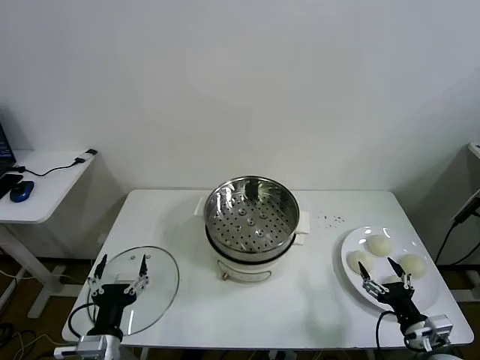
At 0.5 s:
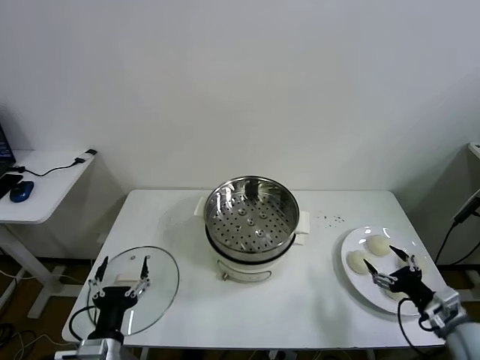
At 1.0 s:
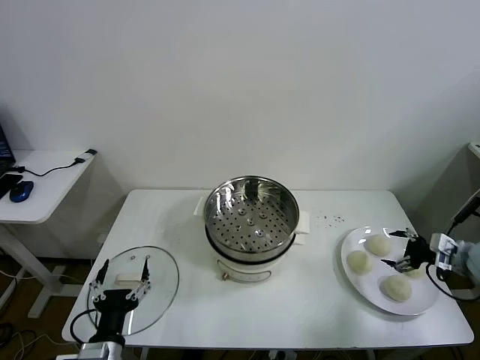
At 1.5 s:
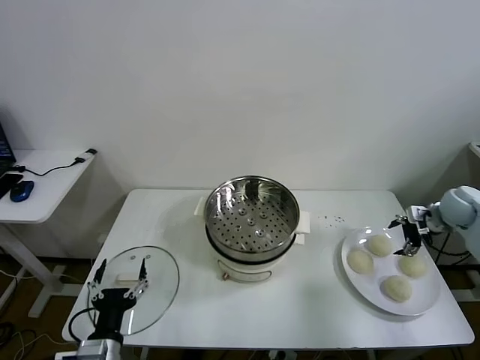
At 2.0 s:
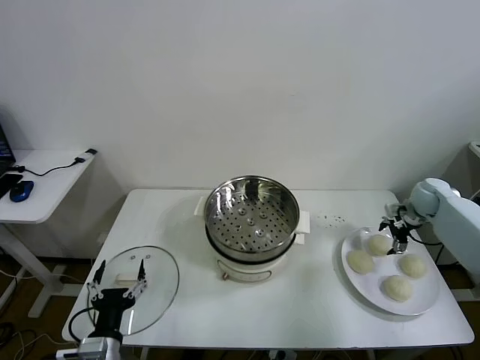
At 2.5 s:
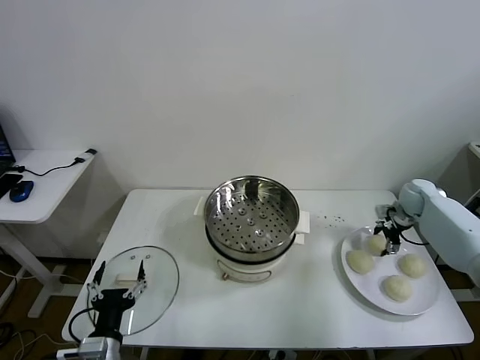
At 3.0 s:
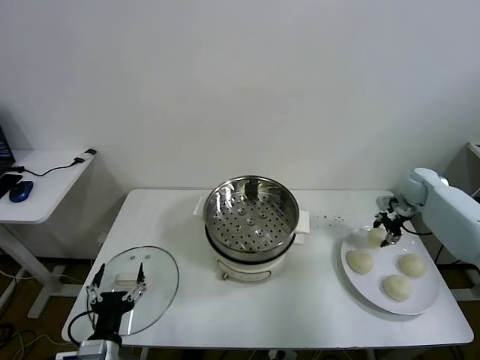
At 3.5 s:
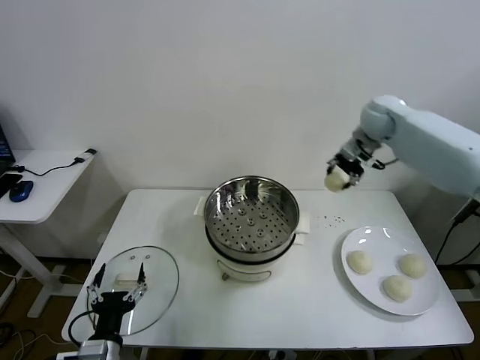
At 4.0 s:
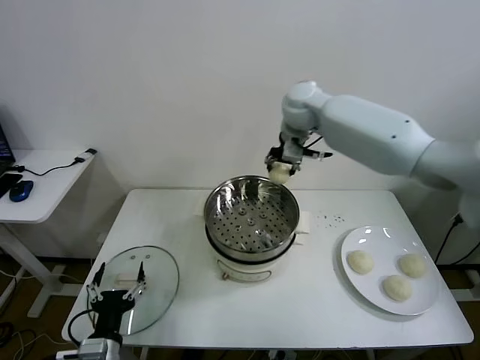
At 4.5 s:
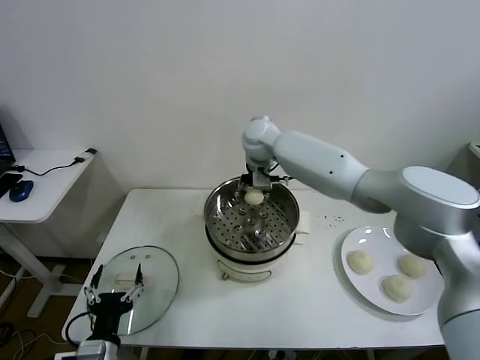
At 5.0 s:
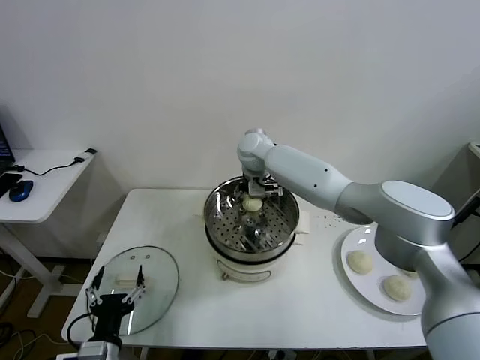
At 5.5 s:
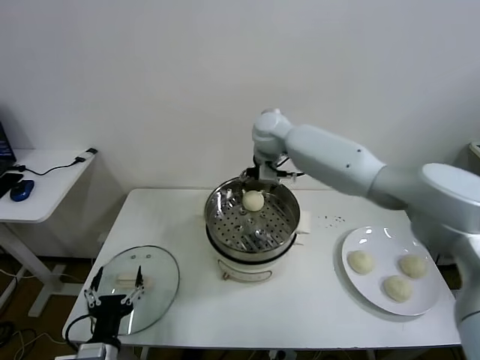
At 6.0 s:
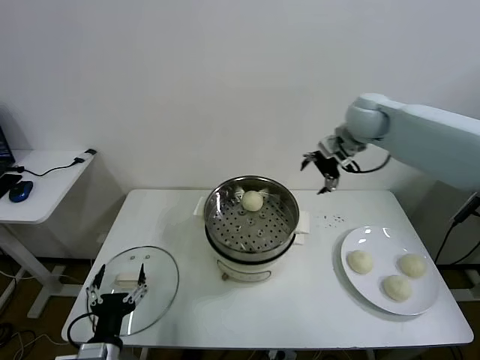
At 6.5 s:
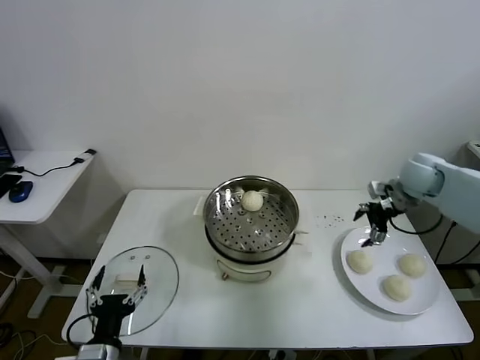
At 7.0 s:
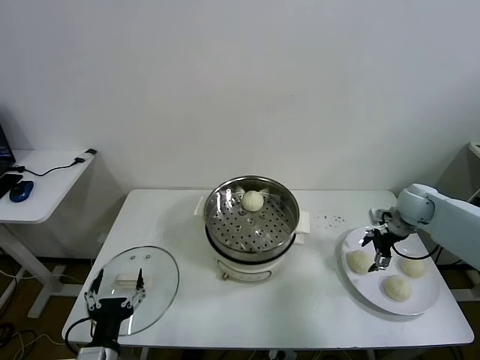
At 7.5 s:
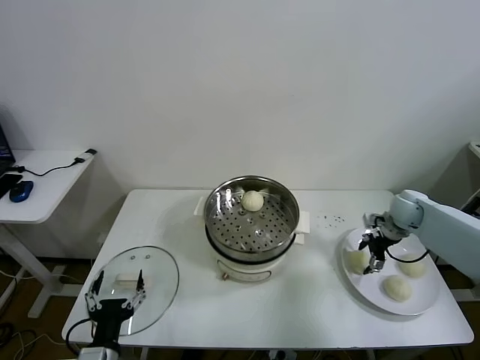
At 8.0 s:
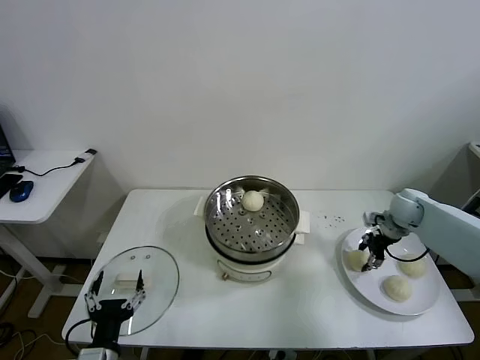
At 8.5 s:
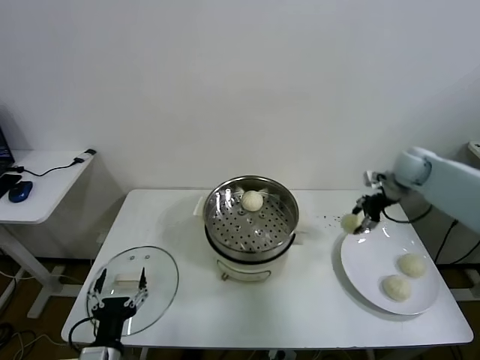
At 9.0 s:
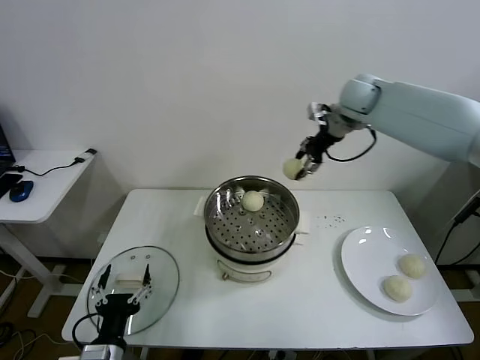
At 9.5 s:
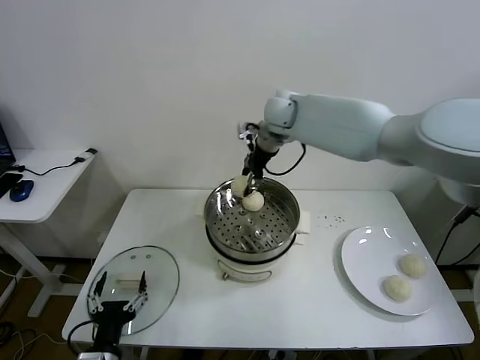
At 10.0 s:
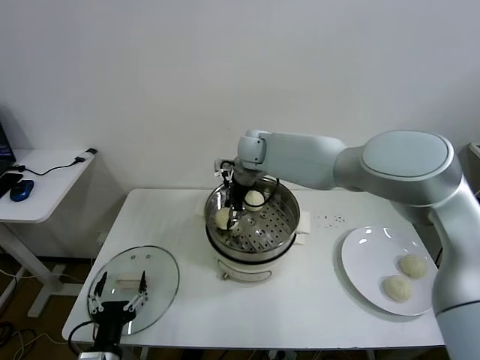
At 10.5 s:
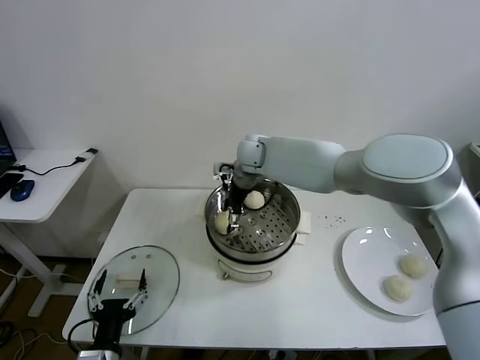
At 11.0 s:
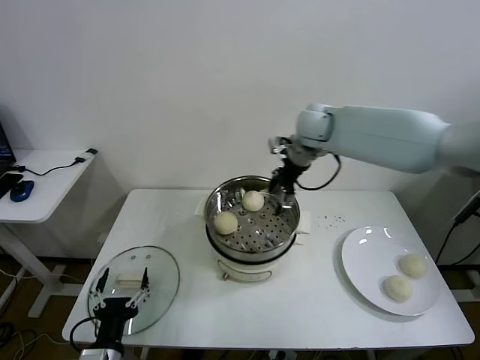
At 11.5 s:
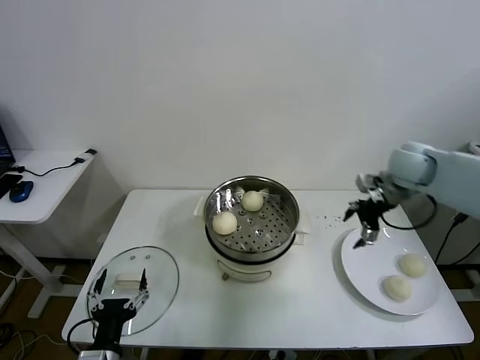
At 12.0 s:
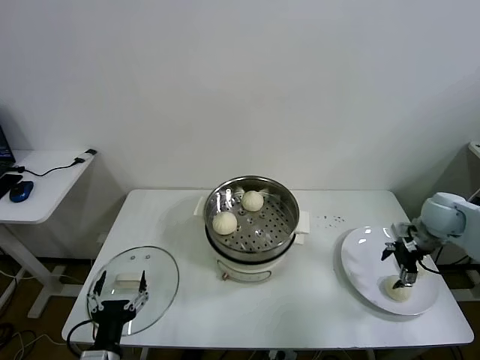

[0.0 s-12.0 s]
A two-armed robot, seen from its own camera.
Task of the whole recording: take steamed baozi put them in steamer.
Step, 0.0 to 2.5 s: Grasp the baozi in the plate with right gripper.
Step, 3.0 to 5.0 s: Place the baozi on the steamer with right gripper.
Step, 5.5 to 7.5 s: Grasp the baozi in the plate with right gripper.
Step, 8.0 to 10.5 s: Place the baozi on the steamer with right gripper.
2.0 to 4.0 s: The right gripper shifts about 40 cm to the left and upward, and closes up.
4.0 to 6.0 s: The right gripper shifts roughly 20 cm to the right, and opens up.
6.0 to 8.0 s: The right gripper heads downward and to the right, covering roughly 25 cm, and closes.
8.0 to 10.0 s: The right gripper heads to the left, covering about 40 cm.
10.0 to 12.0 s: The right gripper moves to the right, approximately 40 cm, and opens its fingers.

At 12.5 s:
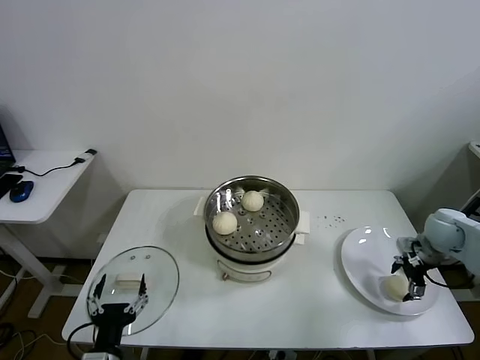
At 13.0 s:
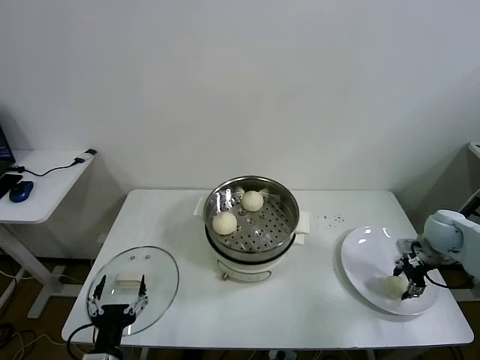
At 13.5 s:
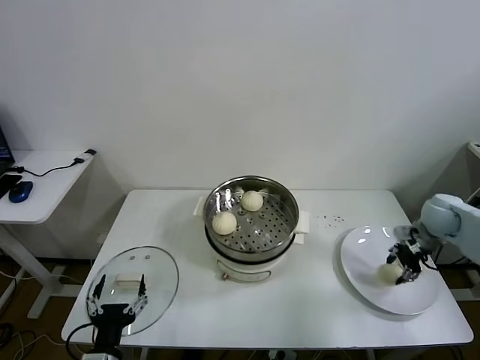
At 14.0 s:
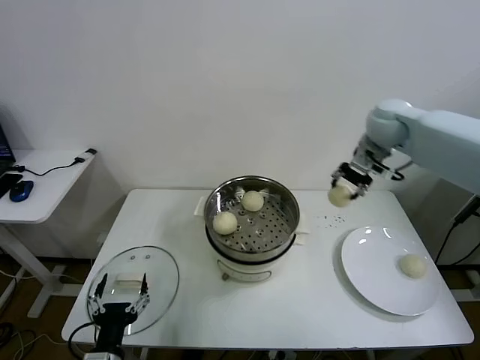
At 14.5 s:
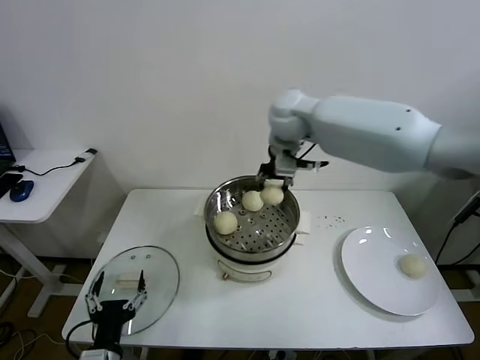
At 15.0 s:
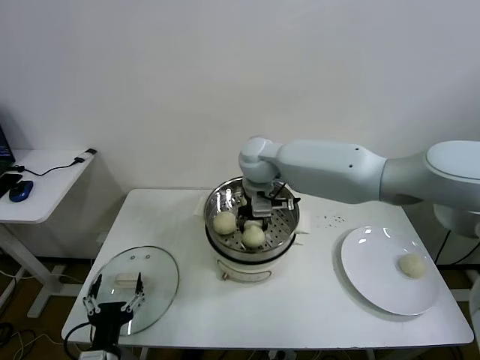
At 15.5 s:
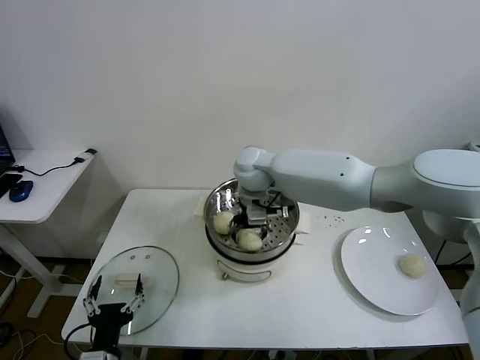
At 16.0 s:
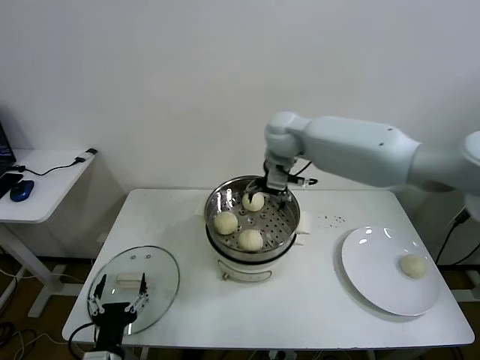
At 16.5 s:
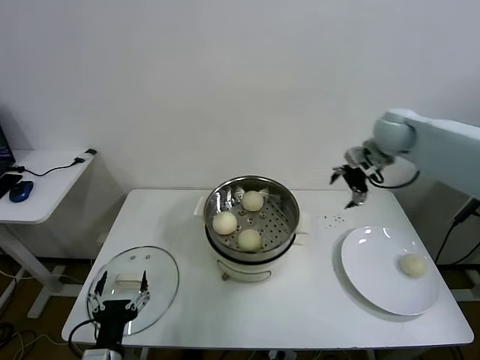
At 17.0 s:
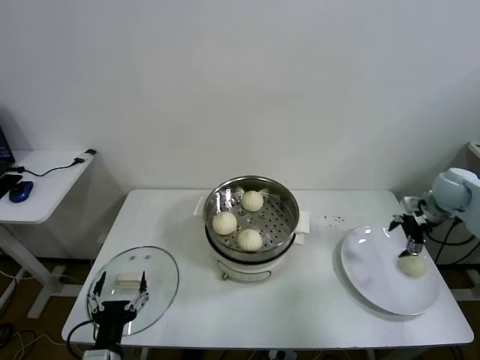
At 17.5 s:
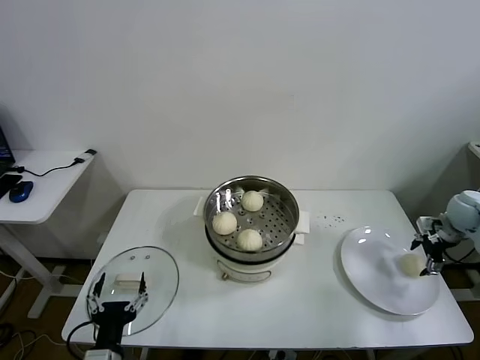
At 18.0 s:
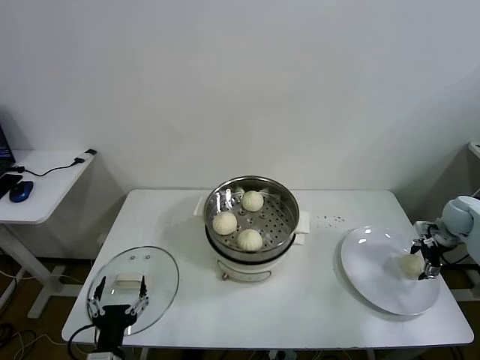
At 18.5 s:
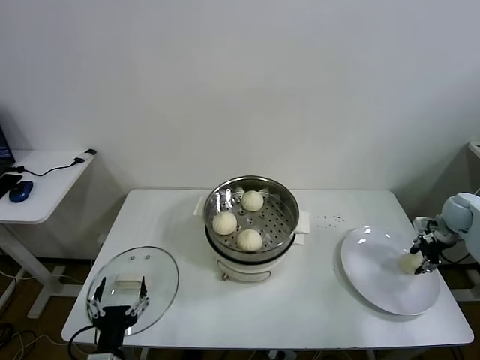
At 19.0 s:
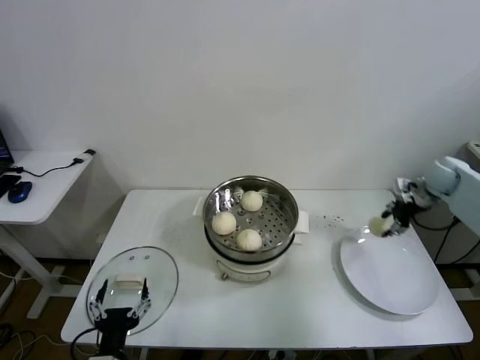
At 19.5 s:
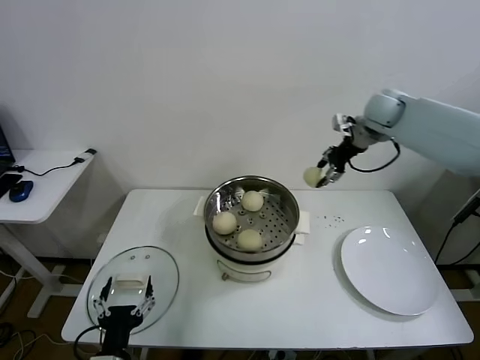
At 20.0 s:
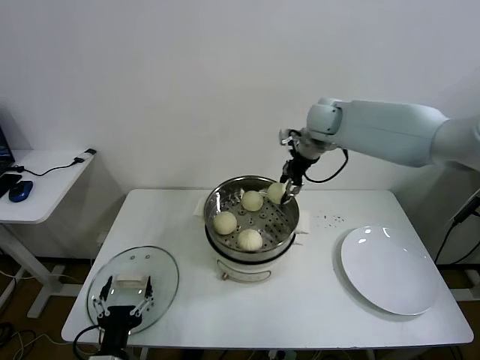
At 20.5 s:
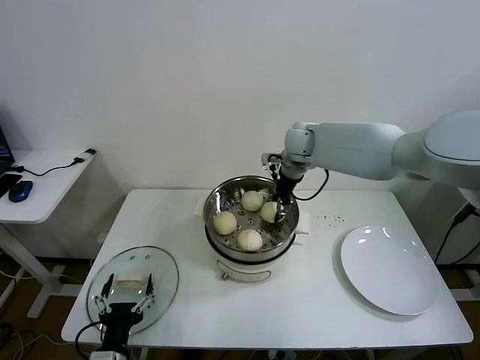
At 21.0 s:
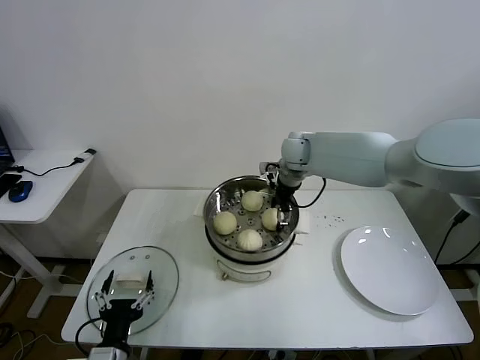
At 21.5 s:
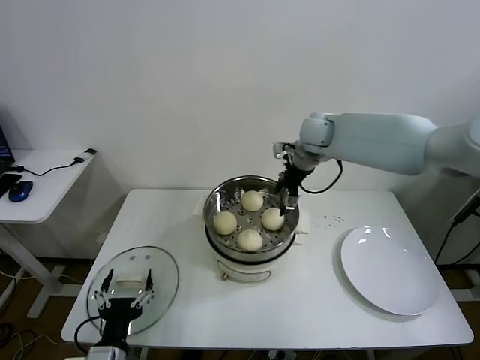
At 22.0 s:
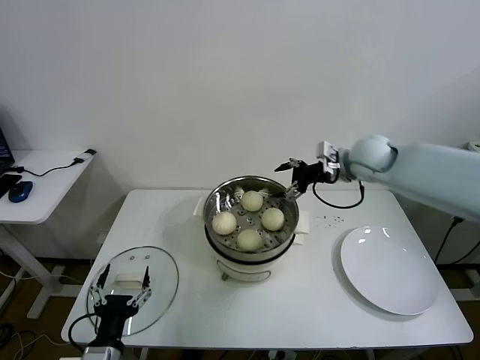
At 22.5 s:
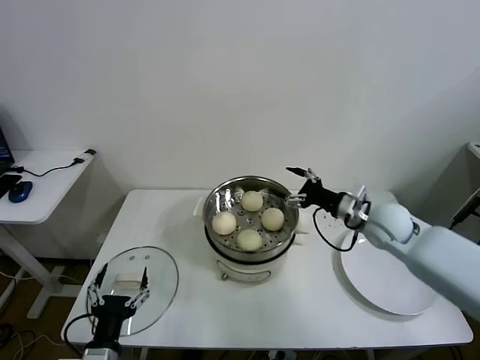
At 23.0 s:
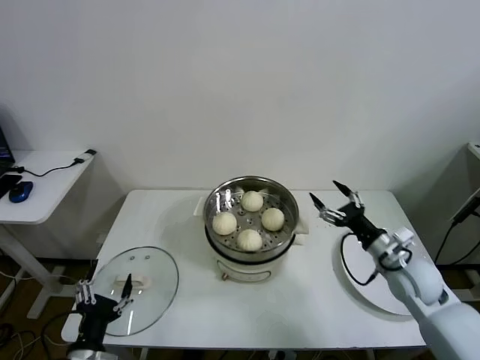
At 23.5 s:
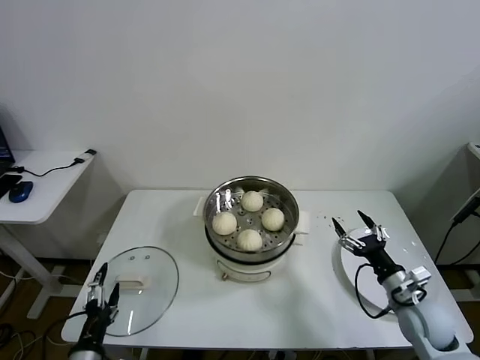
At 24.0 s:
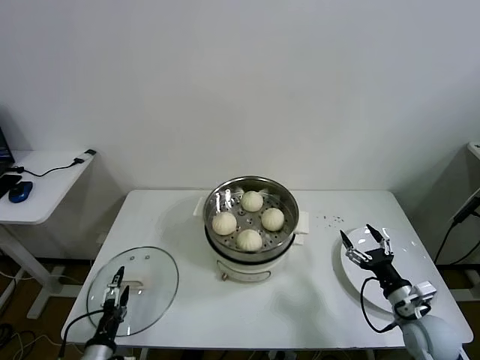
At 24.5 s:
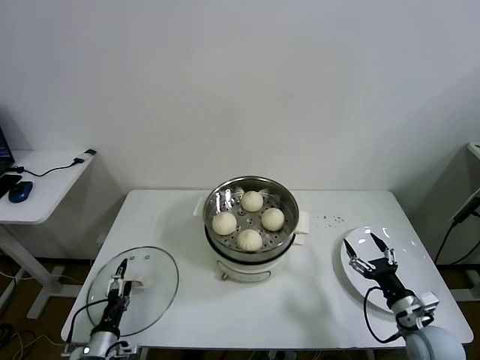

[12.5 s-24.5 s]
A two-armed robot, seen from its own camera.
Task of the whole recording: take steamed baozi put them in steamer.
Step, 13.5 to 15.5 s: Place the baozi on the steamer with right gripper.
Step, 16.0 to 18.0 s: Grasp the baozi in the plate with right gripper.
Step, 18.5 to 21.0 s: Place the baozi on the steamer with right gripper.
12.5 to 14.5 s: The right gripper heads to the left and upward, covering roughly 50 cm, and closes.
14.5 to 16.5 s: The right gripper travels to the right by roughly 25 cm, and opens its fingers.
16.5 to 18.5 s: The right gripper travels to the right and downward by approximately 30 cm, and closes.
18.5 to 20.5 s: The right gripper heads to the left, covering roughly 40 cm.
20.5 to 22.5 s: The right gripper travels backward, to the right and downward by about 25 cm, and opens.
22.5 to 24.5 s: The left gripper is displaced downward, to the left and forward by approximately 15 cm. The right gripper travels backward and downward by about 25 cm.

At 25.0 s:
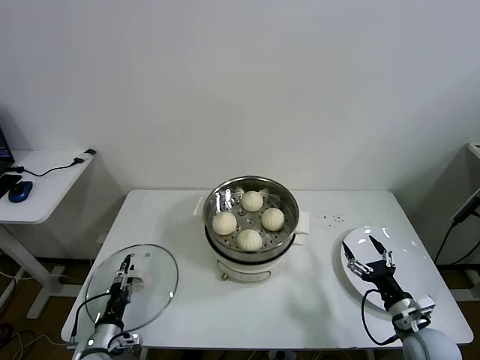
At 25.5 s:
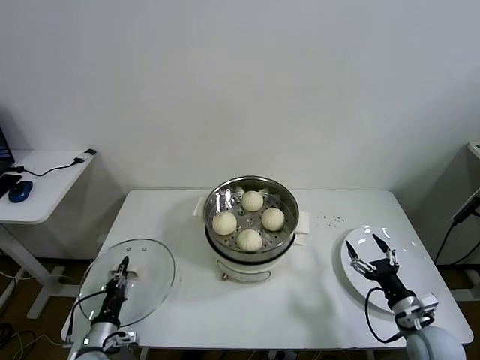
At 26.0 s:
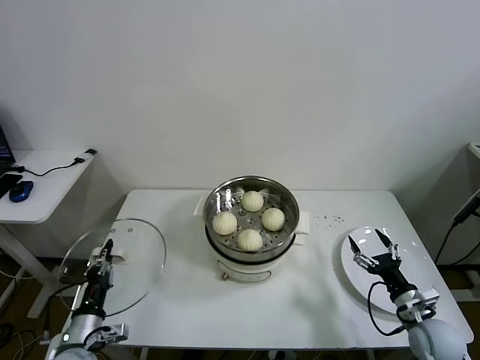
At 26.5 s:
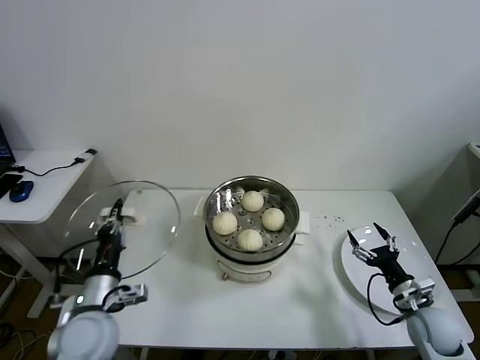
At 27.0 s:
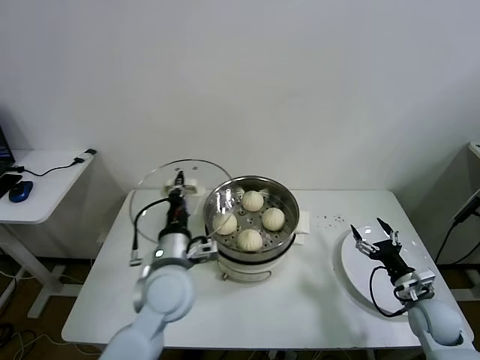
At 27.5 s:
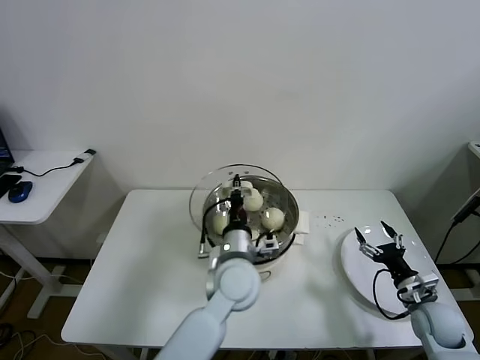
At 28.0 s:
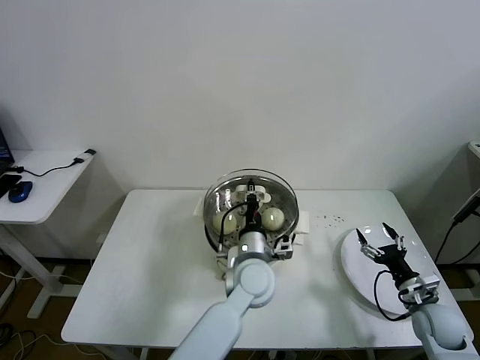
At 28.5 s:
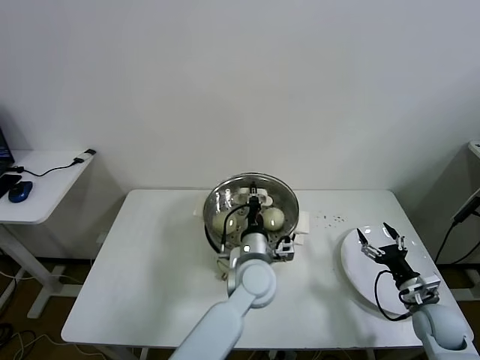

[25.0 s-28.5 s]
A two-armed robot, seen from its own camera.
Task of the whole recording: take steamed baozi put them in steamer.
25.0 to 27.0 s: The left gripper moves upward and to the right, roughly 30 cm, and closes up, while the right gripper shifts some 5 cm forward.
27.0 to 28.5 s: The left gripper goes about 15 cm to the right.
